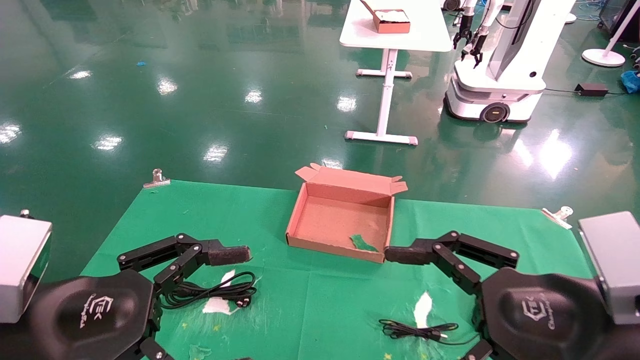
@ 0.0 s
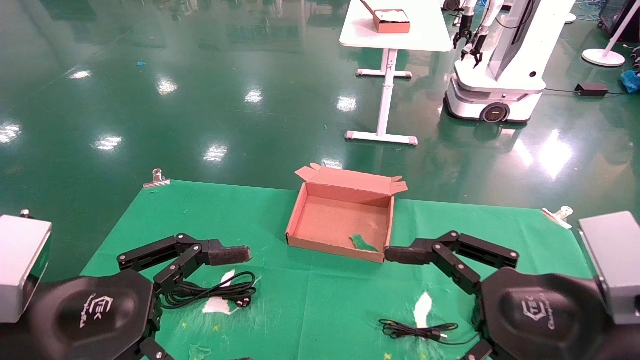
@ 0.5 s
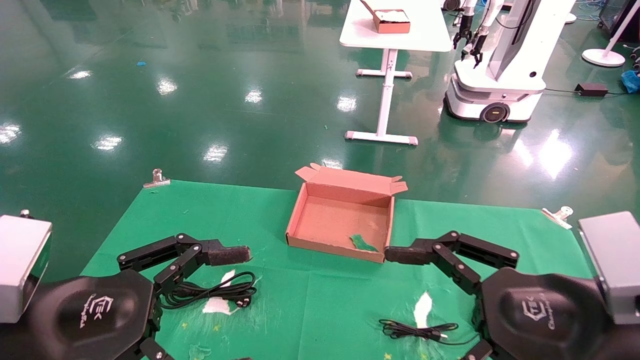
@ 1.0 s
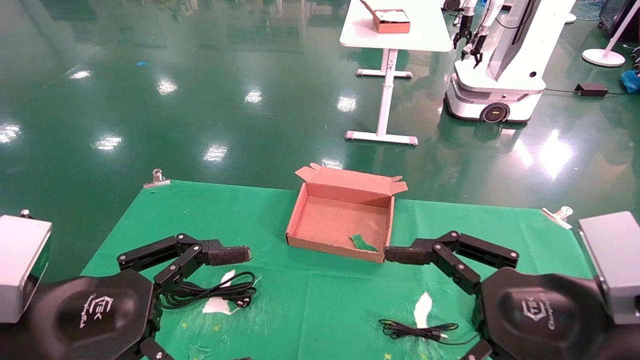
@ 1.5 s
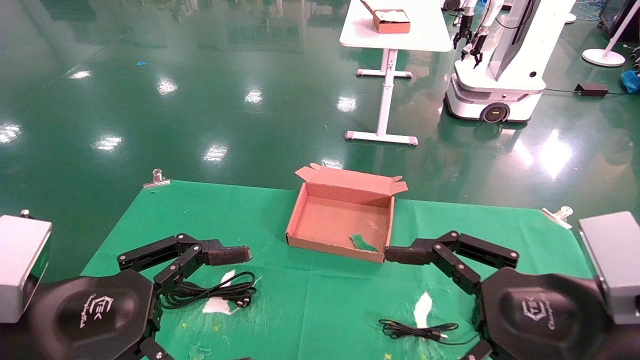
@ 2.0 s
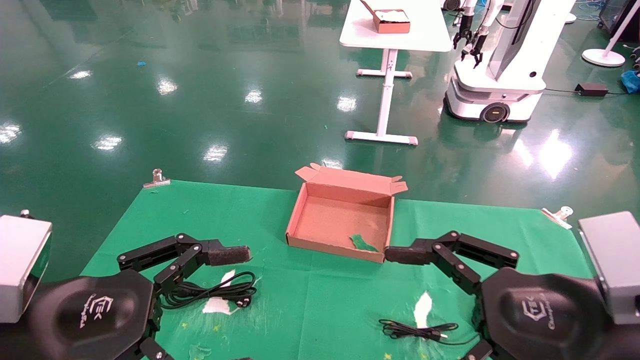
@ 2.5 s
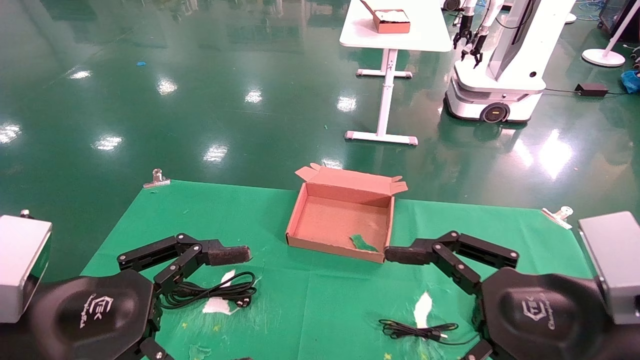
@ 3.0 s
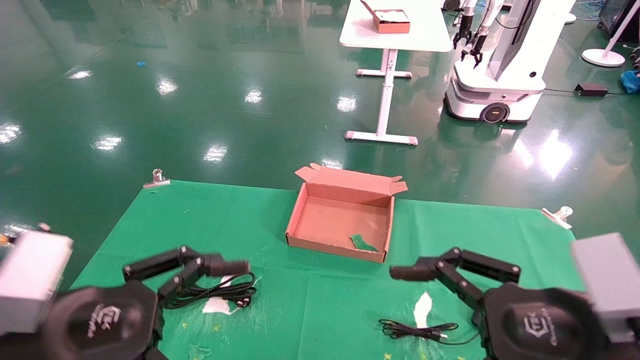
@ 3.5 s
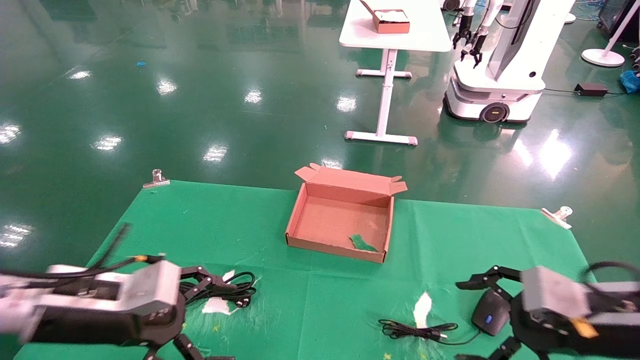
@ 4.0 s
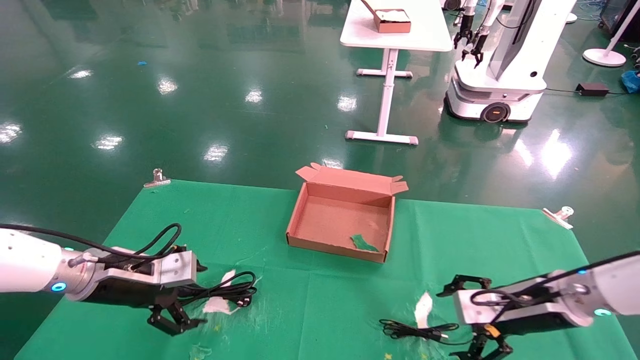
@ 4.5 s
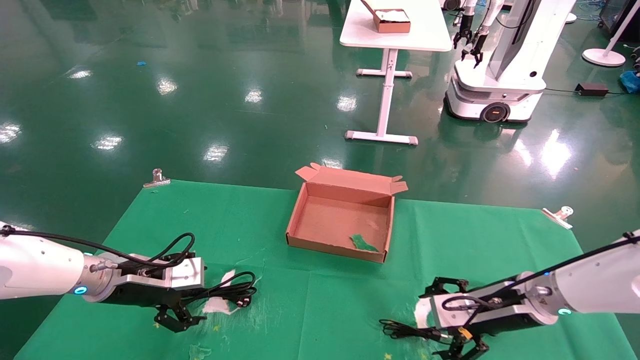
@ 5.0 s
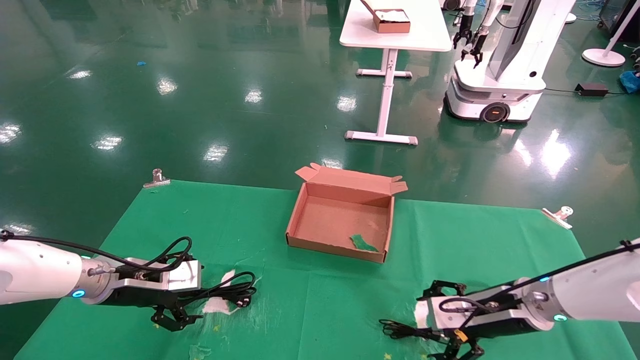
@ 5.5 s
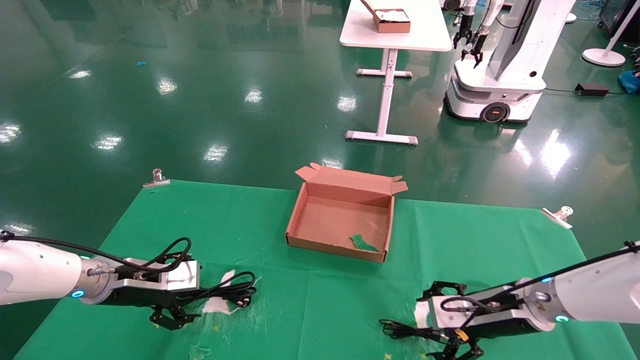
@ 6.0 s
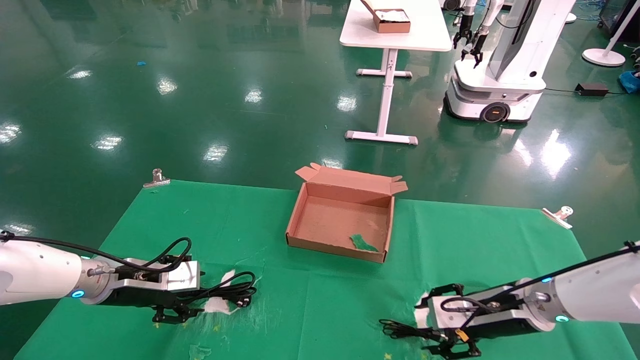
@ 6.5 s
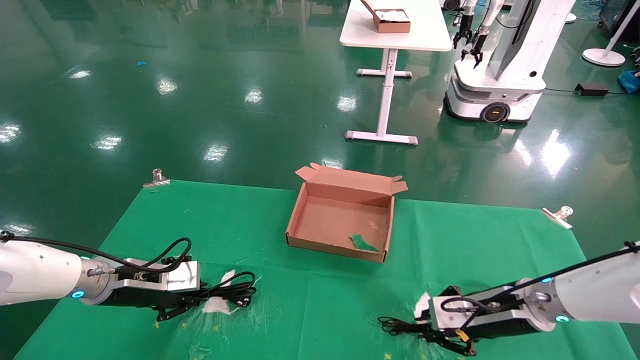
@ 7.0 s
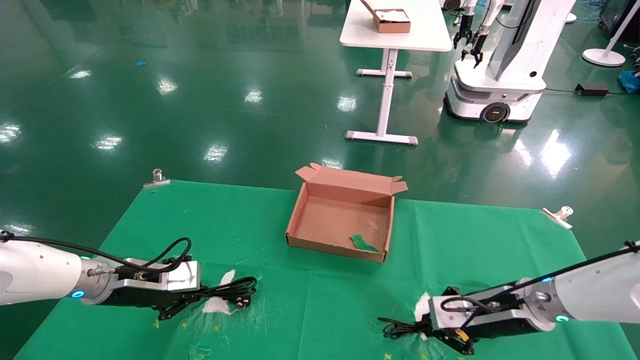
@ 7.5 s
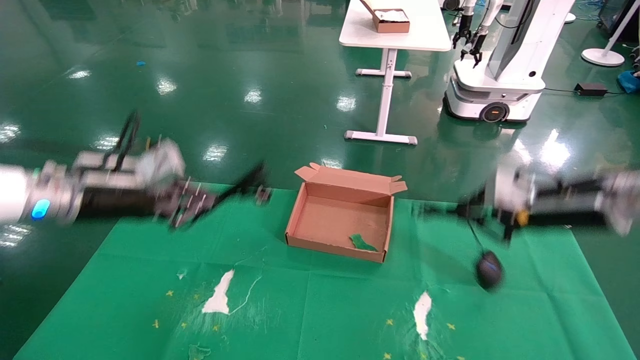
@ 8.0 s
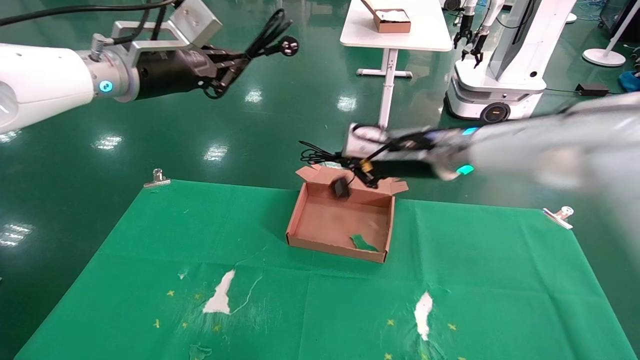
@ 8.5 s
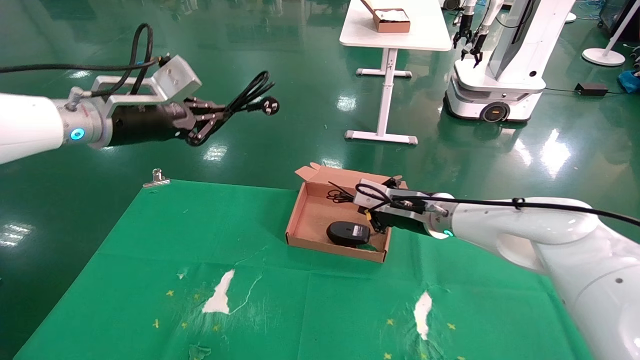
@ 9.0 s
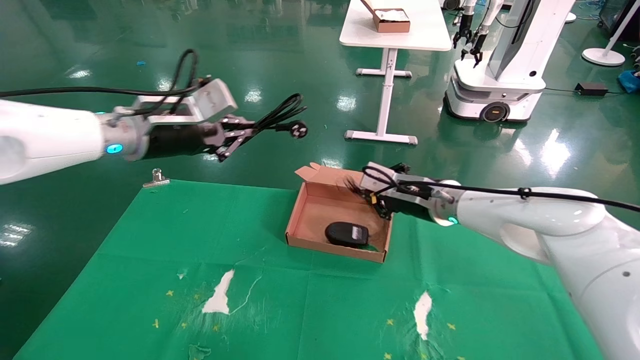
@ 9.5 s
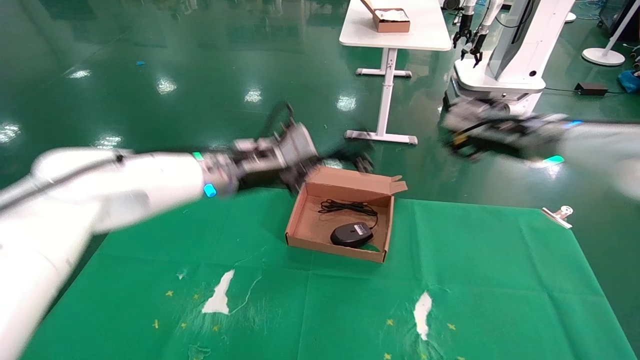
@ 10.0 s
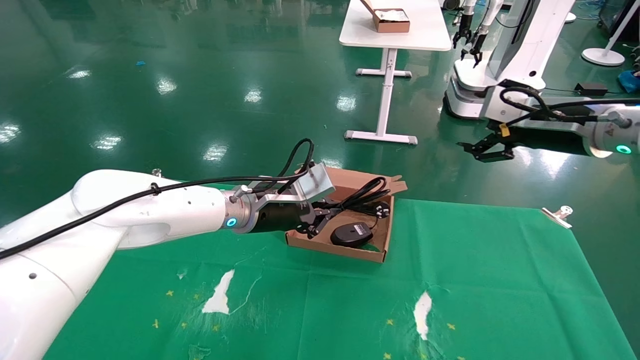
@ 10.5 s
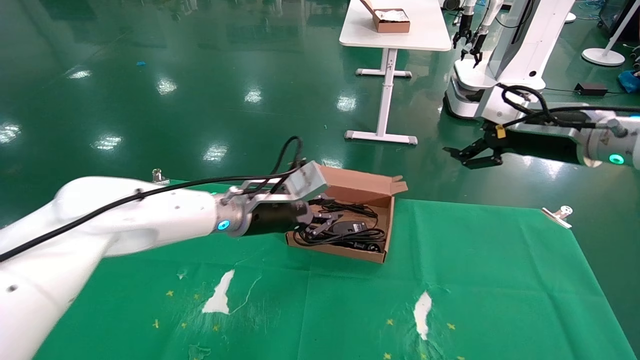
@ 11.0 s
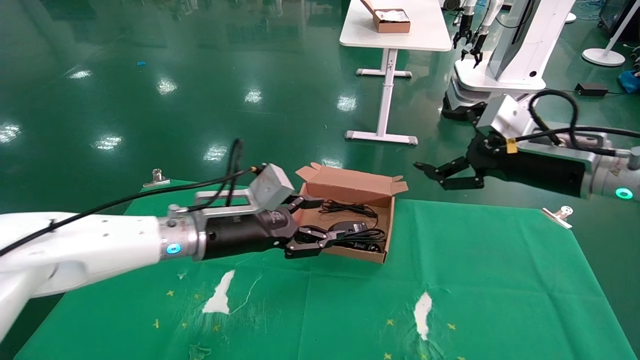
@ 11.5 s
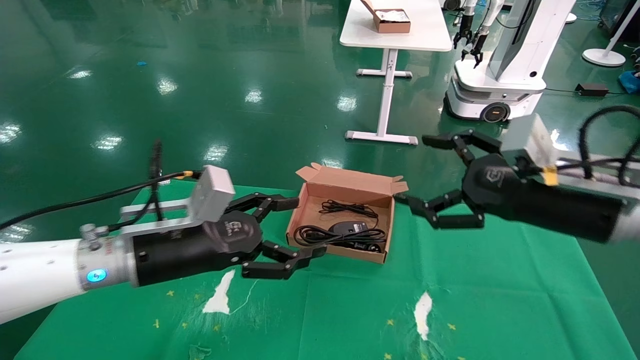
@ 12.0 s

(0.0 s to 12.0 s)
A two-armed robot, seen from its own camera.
Step, 3.0 s - 7.0 s: Grab and lift both the mouse and power cord from the accessory packaging area at the same time.
0.0 s - 2.0 s: Both grippers stay about where they are.
2.0 s - 4.0 s: The left gripper shifts some 10 cm forward, while the right gripper moves forward, to the right and downward, some 15 cm.
4.0 s - 6.0 s: The right gripper moves forward and downward, approximately 15 cm; the left gripper heads forward, covering approximately 10 cm.
6.0 s - 8.0 s: Both grippers travel together upward, about 15 cm. The right gripper closes its fingers. The left gripper closes its fingers.
8.0 s - 10.0 s: The right gripper travels forward and upward by approximately 10 cm, travels to the left and back again, some 15 cm each way, and opens up. The left gripper heads to the right, covering approximately 15 cm.
10.0 s - 12.0 s: The right gripper goes about 15 cm backward, and opens up; the left gripper shifts approximately 15 cm backward, to the left and downward, and opens up.

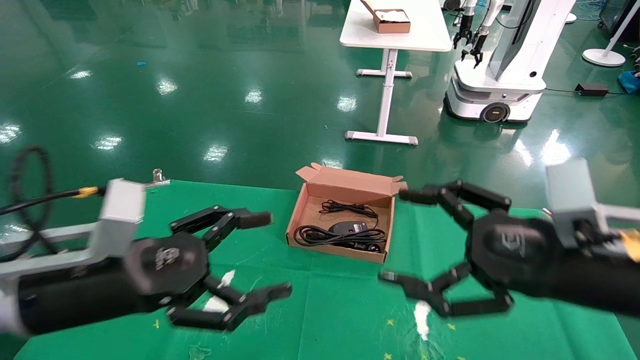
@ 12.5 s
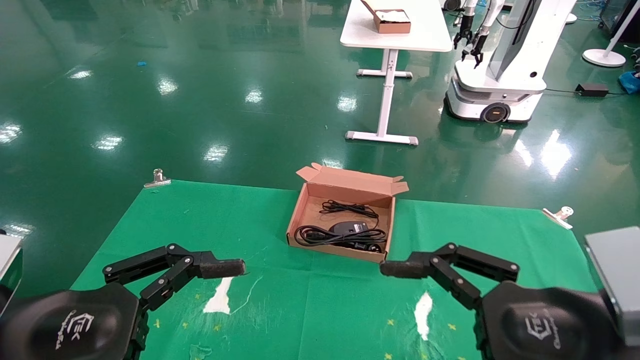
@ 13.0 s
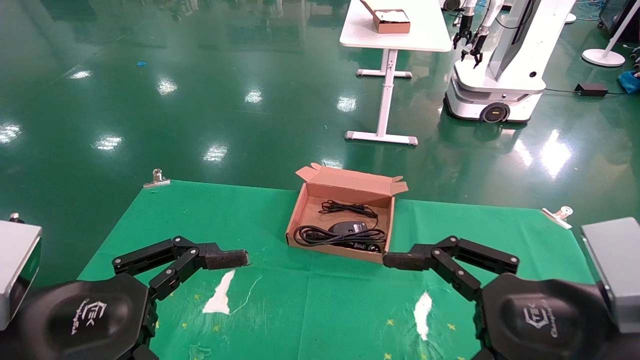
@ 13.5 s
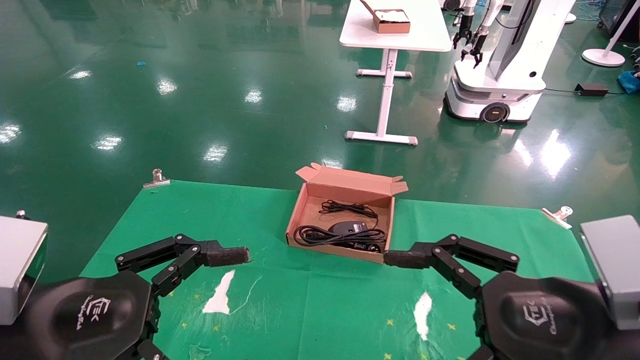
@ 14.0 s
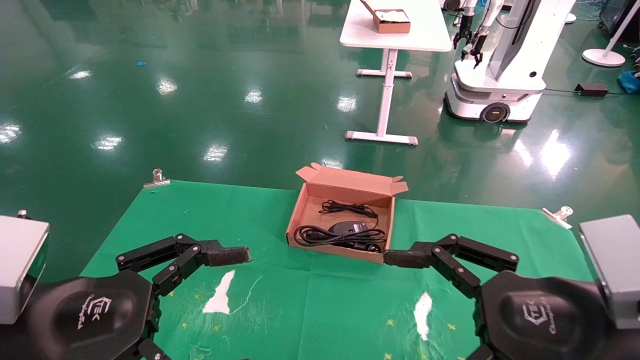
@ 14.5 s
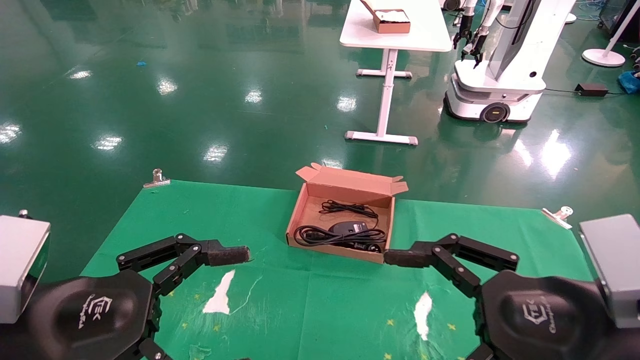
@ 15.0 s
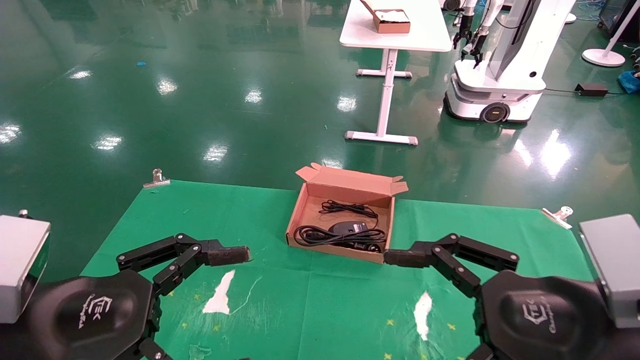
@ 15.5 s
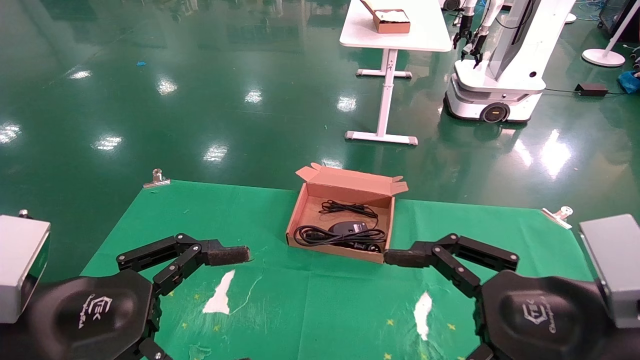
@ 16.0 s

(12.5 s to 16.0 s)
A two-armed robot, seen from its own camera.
12.5 s - 14.5 s: The right gripper moves approximately 5 cm. The left gripper heads backward, covering roughly 5 cm.
14.5 s - 16.0 s: Both grippers stay put.
